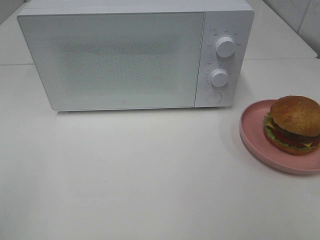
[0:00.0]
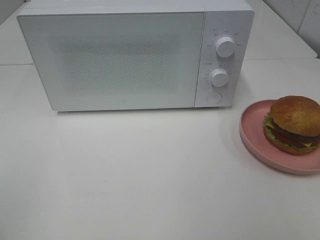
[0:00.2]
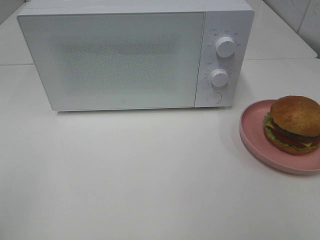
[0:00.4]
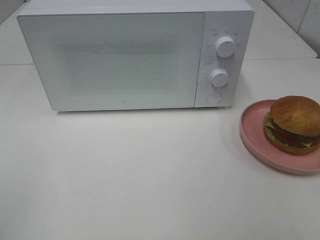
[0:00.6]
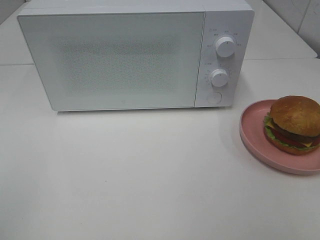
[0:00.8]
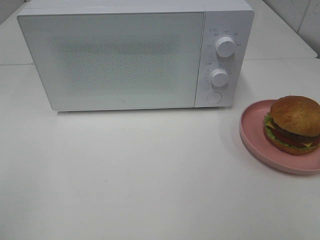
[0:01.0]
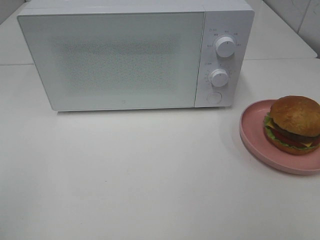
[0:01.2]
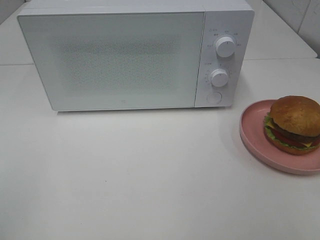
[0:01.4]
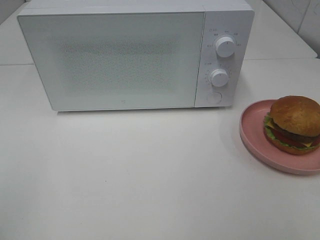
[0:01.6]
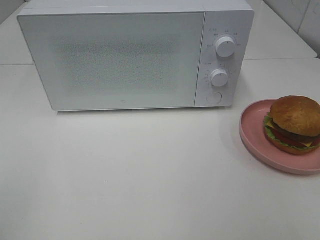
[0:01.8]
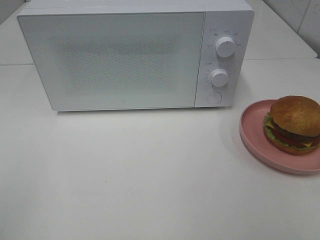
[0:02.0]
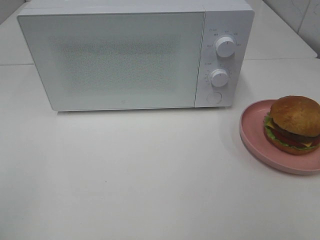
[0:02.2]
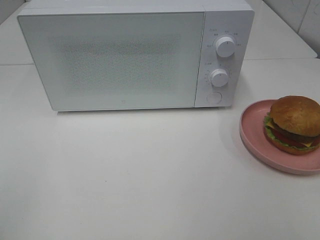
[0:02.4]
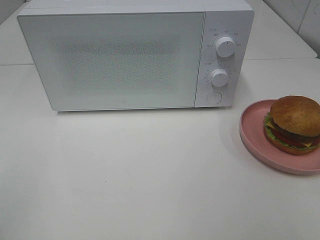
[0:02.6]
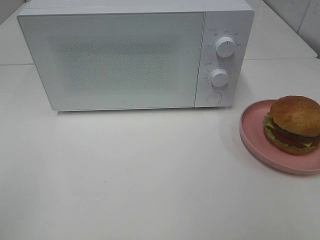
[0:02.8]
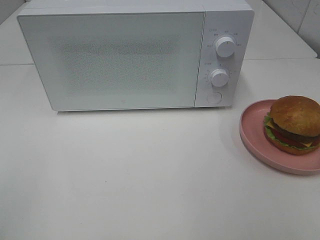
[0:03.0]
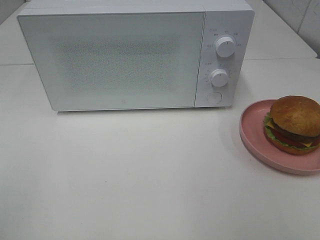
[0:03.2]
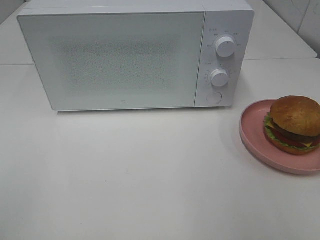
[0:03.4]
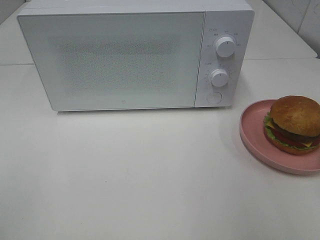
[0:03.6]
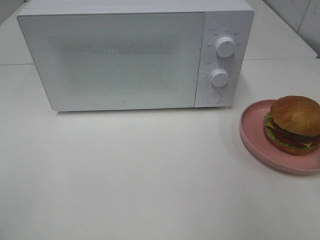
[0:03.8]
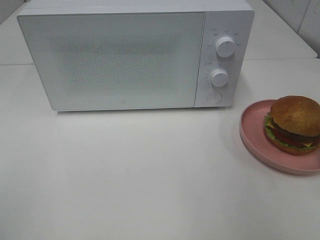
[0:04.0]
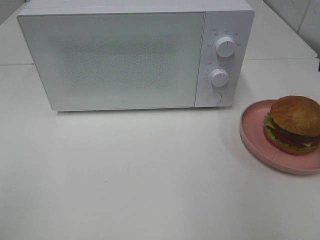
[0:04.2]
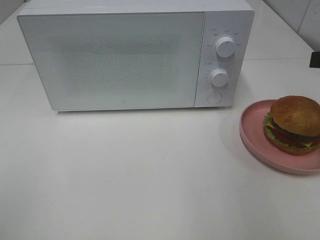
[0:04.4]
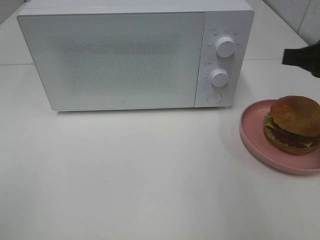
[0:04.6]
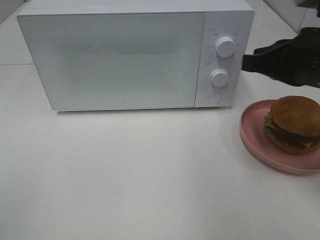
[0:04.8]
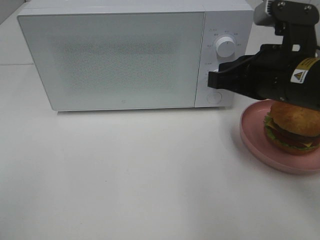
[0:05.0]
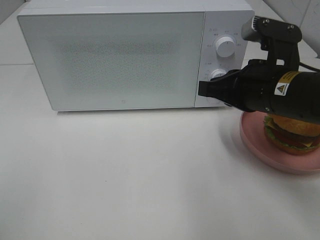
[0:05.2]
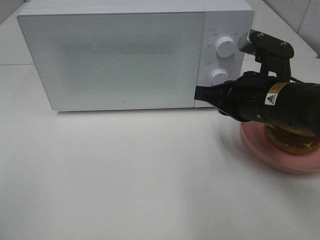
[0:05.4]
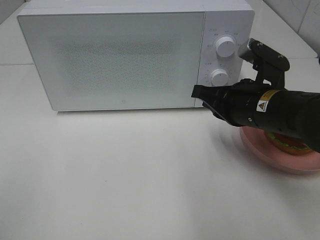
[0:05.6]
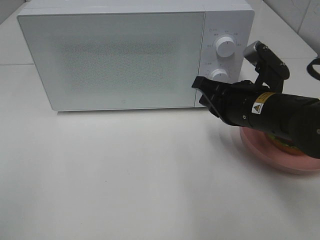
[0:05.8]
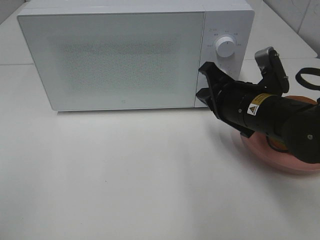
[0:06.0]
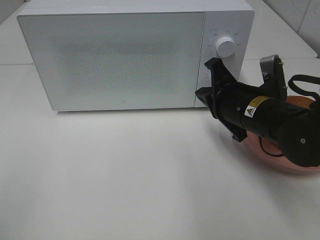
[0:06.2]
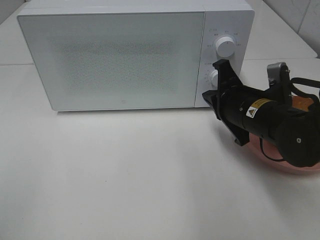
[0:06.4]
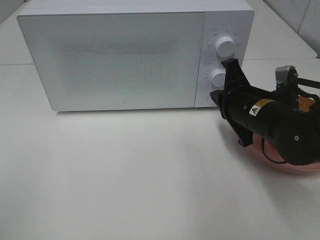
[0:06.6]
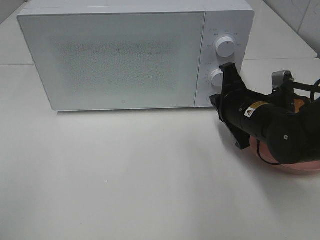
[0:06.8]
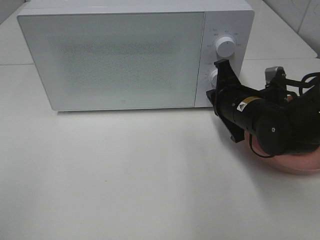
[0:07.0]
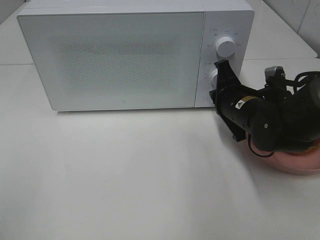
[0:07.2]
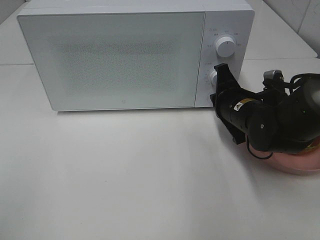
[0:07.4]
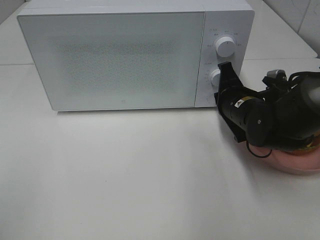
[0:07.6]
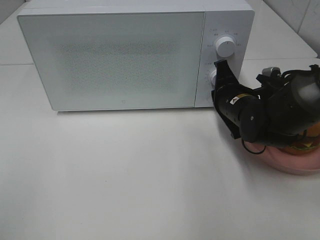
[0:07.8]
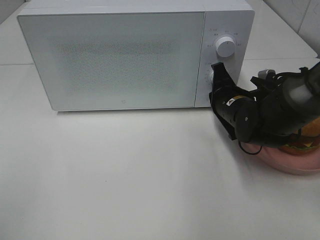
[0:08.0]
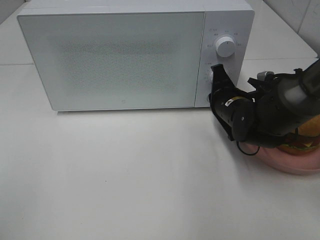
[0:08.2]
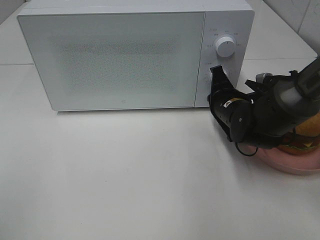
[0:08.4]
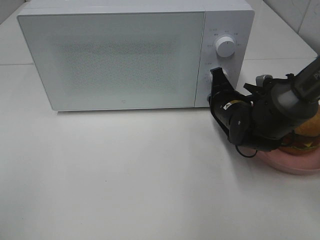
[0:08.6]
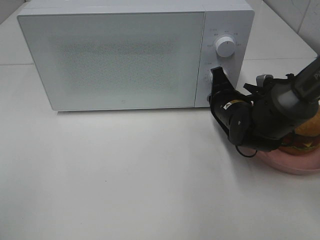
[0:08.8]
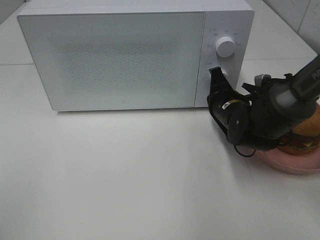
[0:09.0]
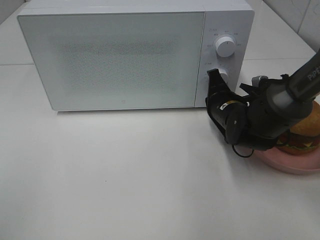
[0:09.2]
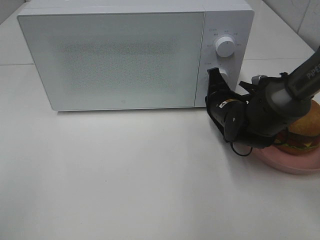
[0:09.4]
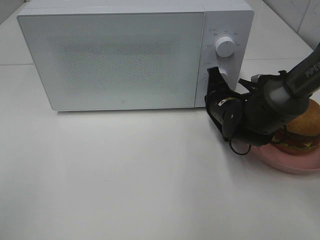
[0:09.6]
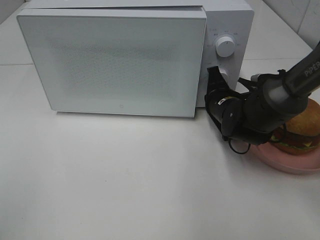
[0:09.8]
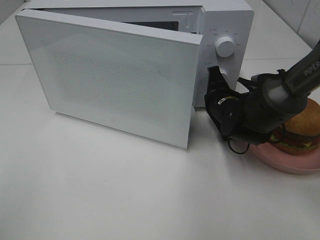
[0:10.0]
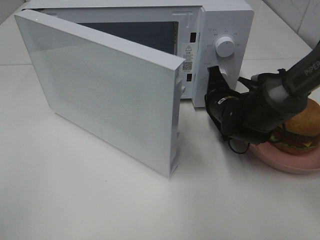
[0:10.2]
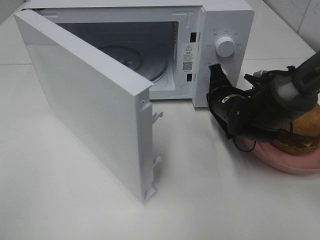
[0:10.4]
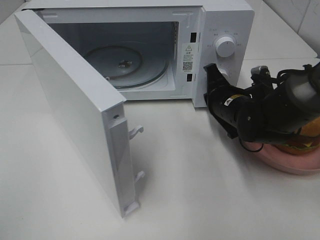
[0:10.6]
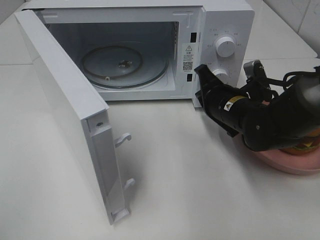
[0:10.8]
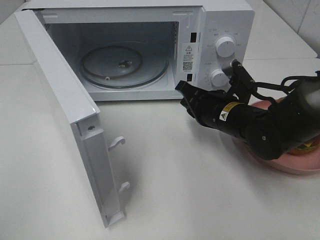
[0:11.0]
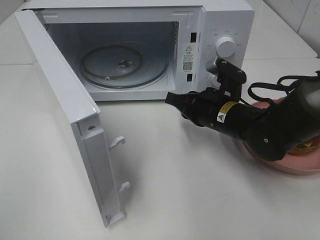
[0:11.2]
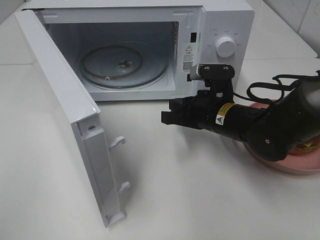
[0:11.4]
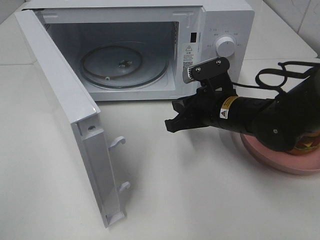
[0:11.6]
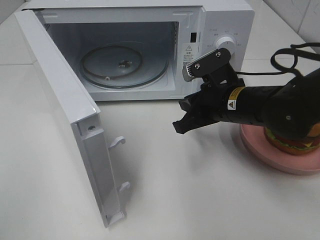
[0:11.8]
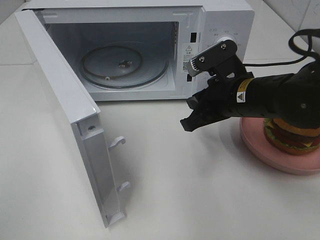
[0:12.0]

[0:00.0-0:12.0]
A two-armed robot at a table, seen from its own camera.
Task of the whole recording: Heat the burger.
Step, 0:00.0 to 0:10.6: Right hand: press the switch.
0:00.0 to 0:03.0: Both grippers stay about where they are.
0:04.4 to 0:06.0: The right gripper shifts approximately 15 cm to the left and downward.
0:06.0 to 0:07.6: The right gripper travels forward by roughly 5 cm.
0:07.6 to 0:09.0: The grippers stay close to where they were, moving slightly.
0:10.4 to 0:12.0: The right gripper moves upward and backward, some 10 cm.

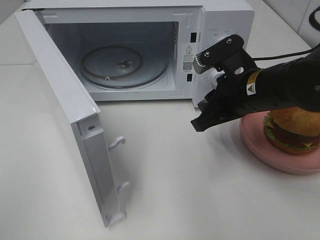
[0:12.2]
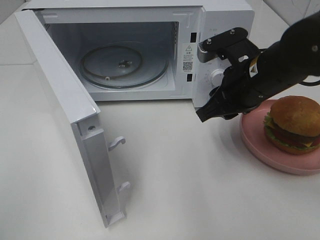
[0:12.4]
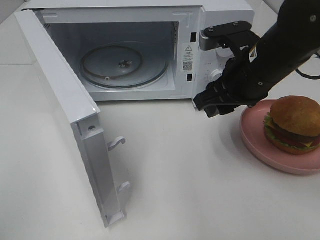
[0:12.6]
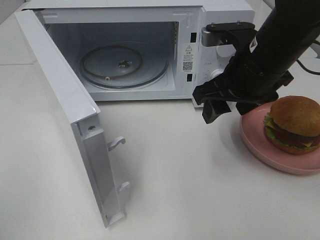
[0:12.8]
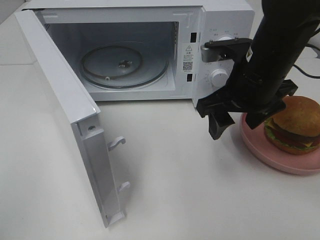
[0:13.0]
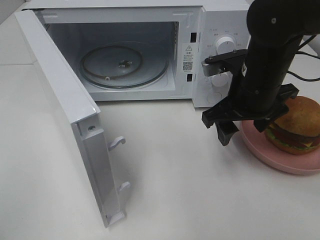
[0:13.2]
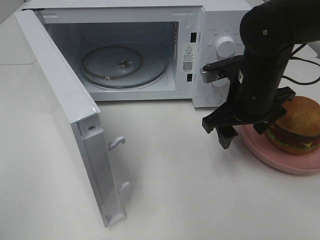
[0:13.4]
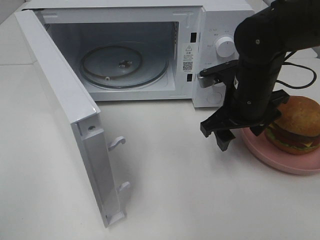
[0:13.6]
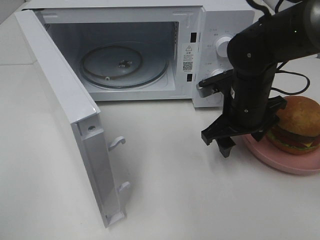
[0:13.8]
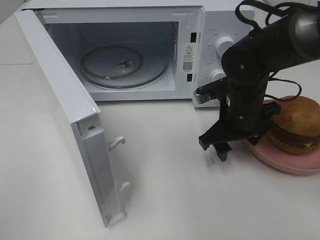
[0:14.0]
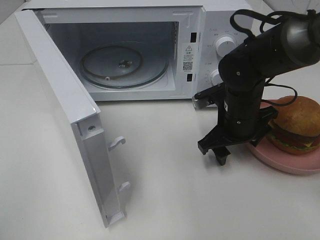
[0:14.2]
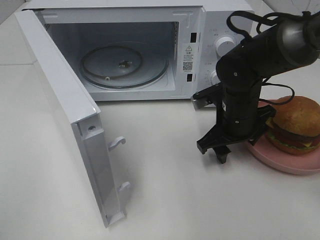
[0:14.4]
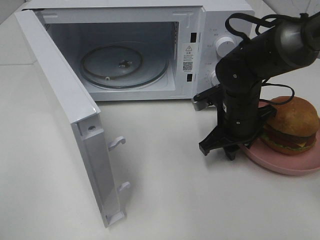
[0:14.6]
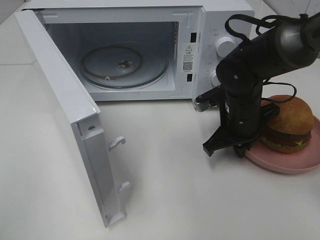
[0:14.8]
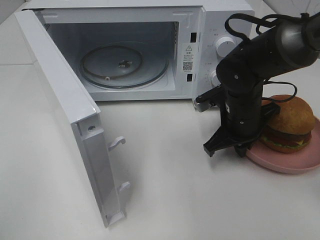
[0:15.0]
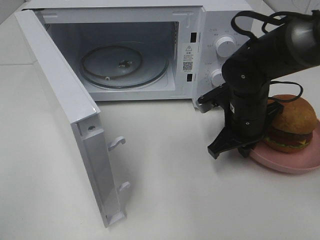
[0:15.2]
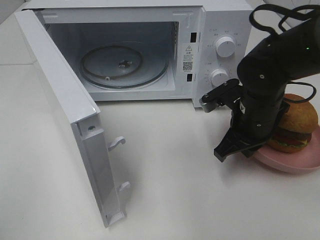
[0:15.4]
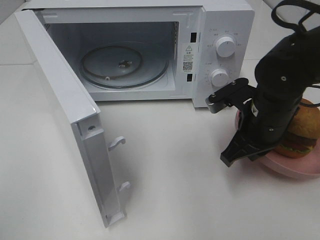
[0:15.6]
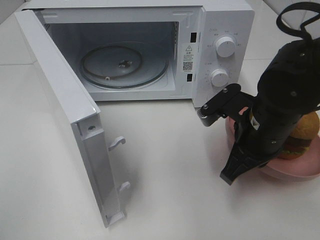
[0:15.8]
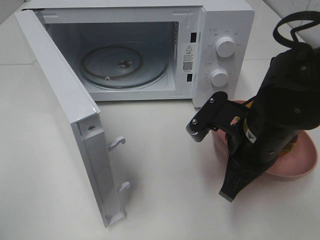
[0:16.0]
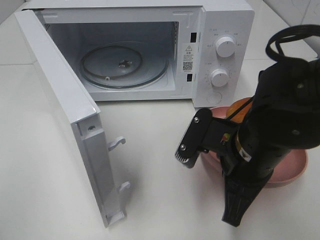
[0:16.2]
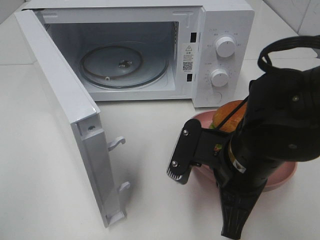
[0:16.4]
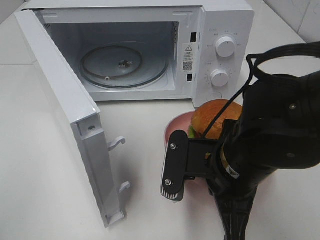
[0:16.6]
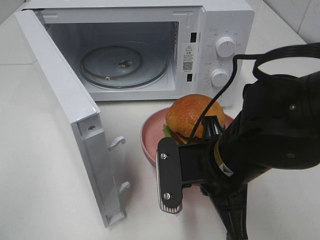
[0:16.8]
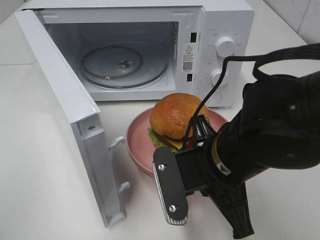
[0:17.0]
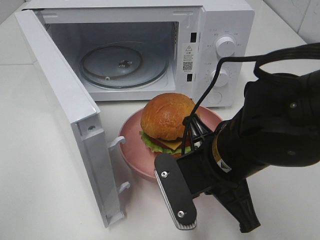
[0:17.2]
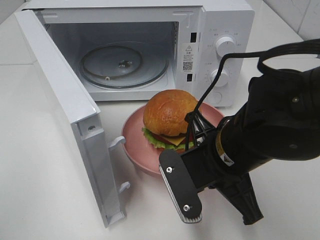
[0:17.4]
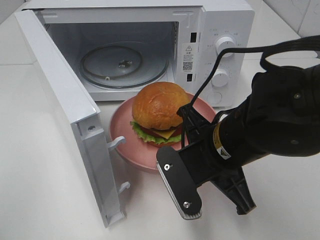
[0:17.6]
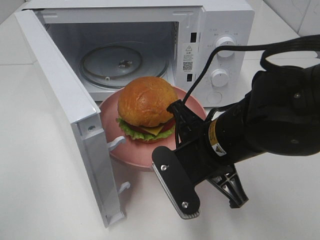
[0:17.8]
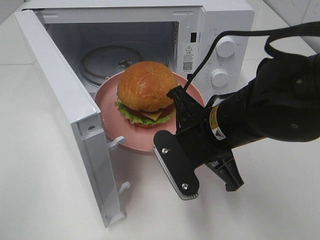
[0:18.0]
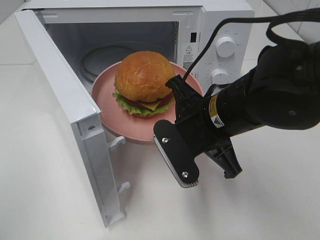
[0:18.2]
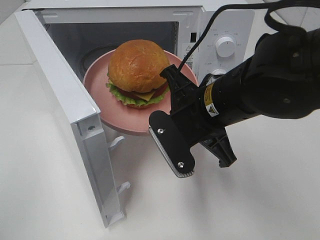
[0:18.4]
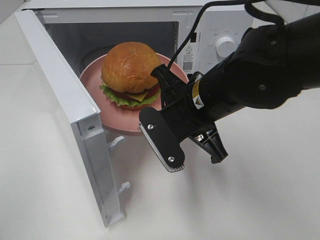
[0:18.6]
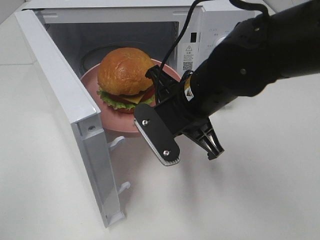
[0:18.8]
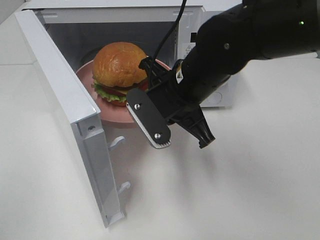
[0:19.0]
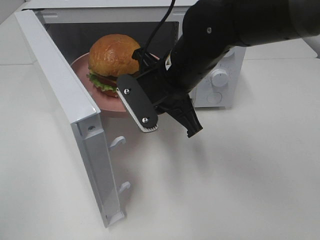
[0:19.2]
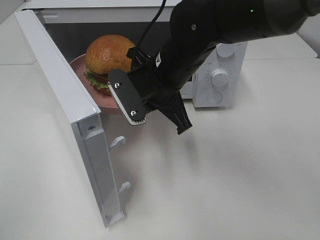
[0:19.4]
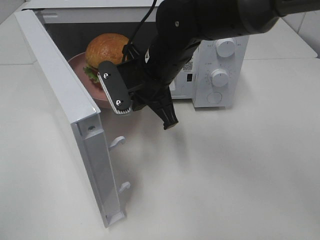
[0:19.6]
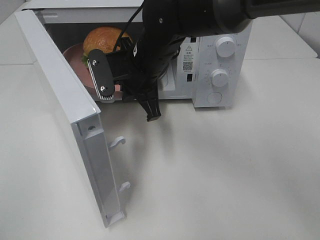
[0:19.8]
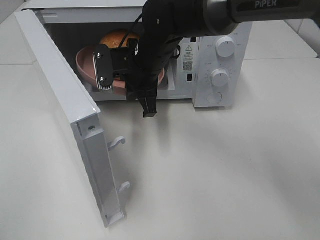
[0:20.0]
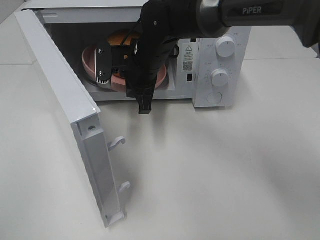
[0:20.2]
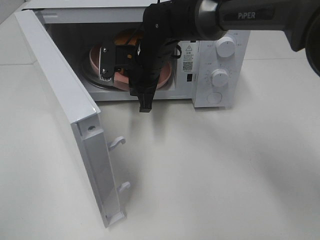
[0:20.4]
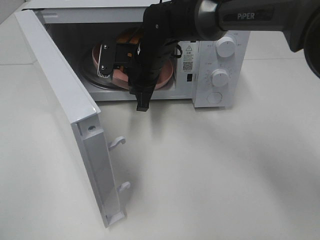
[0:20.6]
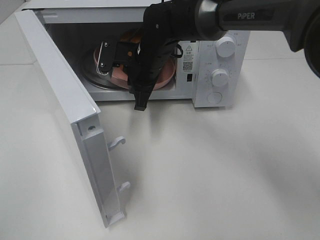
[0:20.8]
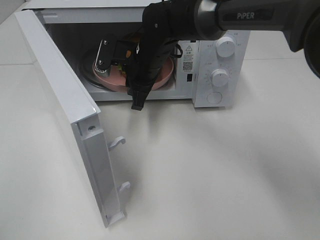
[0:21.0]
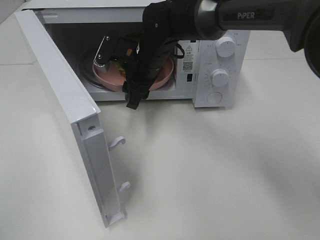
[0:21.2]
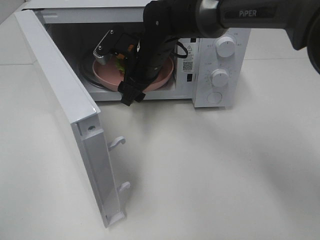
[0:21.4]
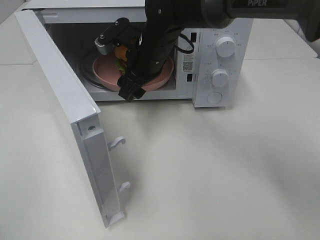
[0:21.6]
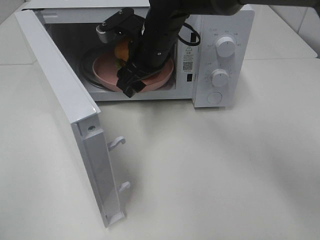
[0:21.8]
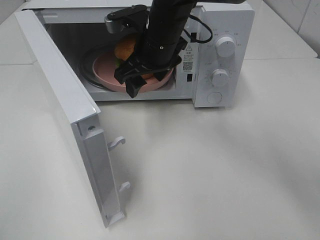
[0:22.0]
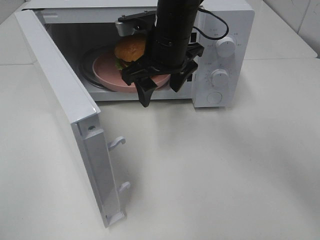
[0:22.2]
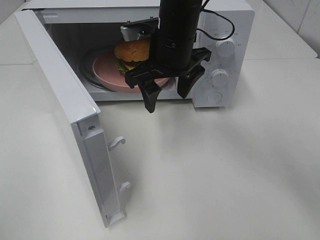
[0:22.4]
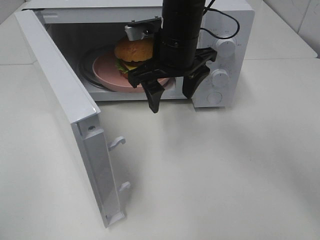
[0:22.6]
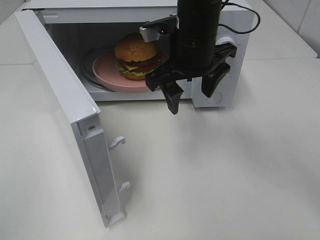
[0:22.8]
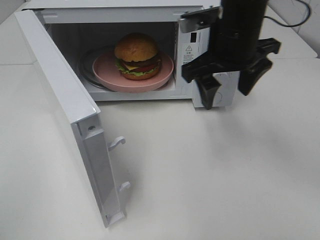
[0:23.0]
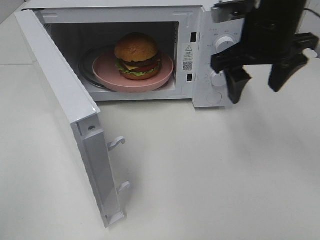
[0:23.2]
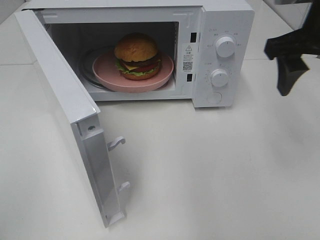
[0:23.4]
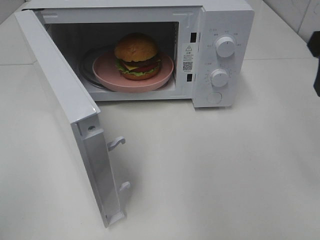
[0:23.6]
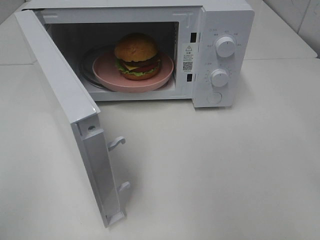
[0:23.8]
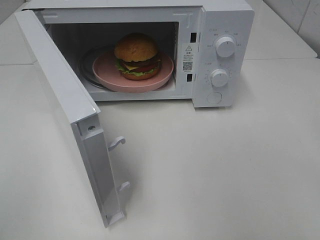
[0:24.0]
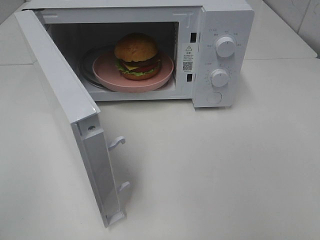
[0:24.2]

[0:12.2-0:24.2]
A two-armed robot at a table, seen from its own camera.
Task of the whole recording: Heat the burger.
Step, 0:12.2 to 0:14.8: Right hand: grab the plate with the hamburger.
Step, 0:15.0 to 0:21.0: Right hand: place the plate in the microwave.
0:12.2 to 0:13.8: The right gripper moves roughly 5 cm, and opens up.
0:13.8 to 0:15.2: The right gripper closes its fingers.
0:15.2 to 0:16.6: The right gripper goes about 15 cm backward.
0:16.6 to 0:18.2: The right gripper changes place by some 5 cm.
0:18.2 to 0:19.8: The right gripper is displaced forward and to the left by approximately 15 cm.
0:19.8 to 0:21.2: The right gripper moves forward, about 5 cm, and opens.
0:21.2 to 0:22.6: The right gripper goes some 10 cm upward and backward.
0:22.6 to 0:24.2: The right gripper goes approximately 40 cm backward and to the right.
